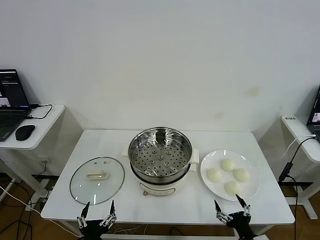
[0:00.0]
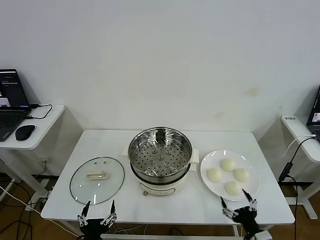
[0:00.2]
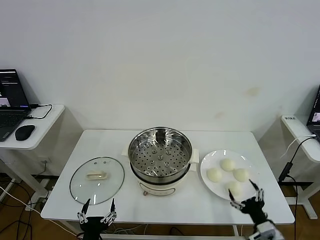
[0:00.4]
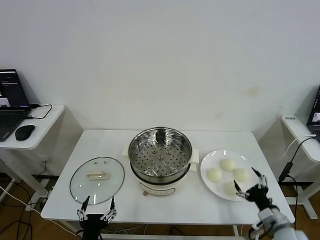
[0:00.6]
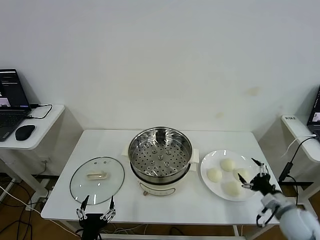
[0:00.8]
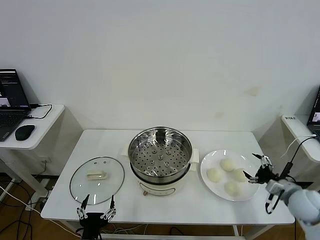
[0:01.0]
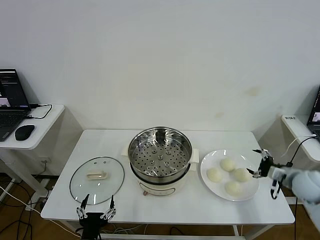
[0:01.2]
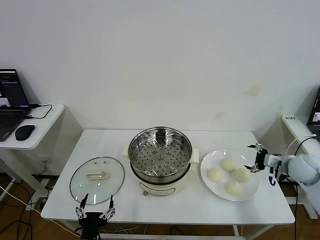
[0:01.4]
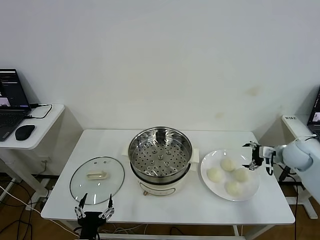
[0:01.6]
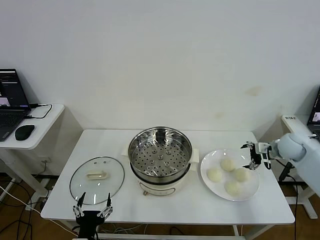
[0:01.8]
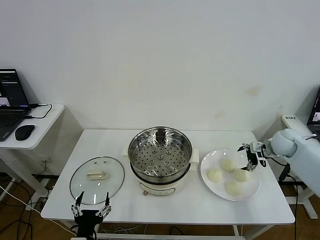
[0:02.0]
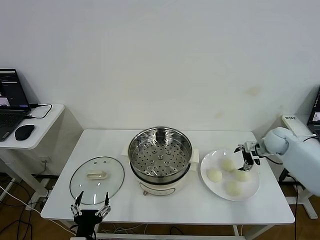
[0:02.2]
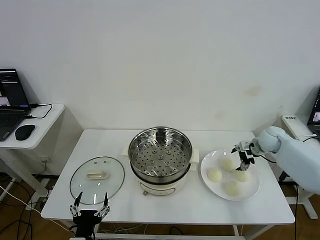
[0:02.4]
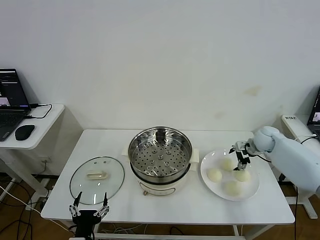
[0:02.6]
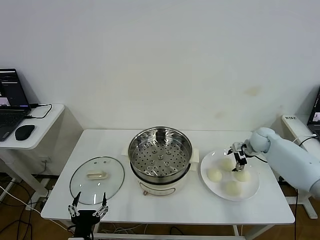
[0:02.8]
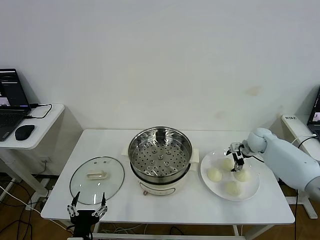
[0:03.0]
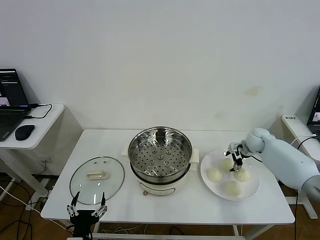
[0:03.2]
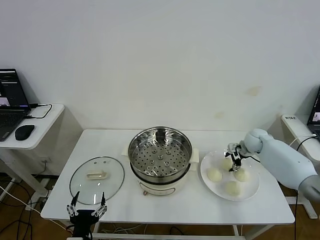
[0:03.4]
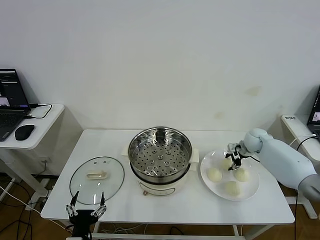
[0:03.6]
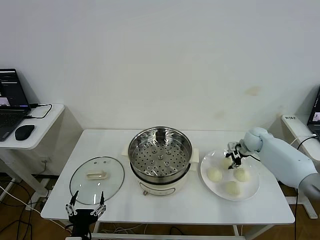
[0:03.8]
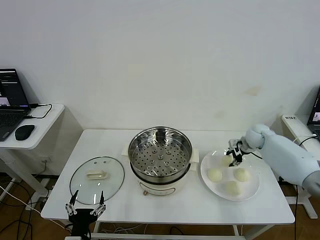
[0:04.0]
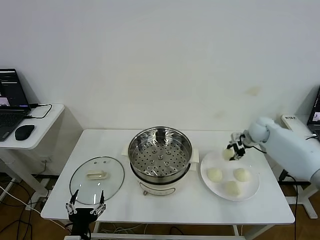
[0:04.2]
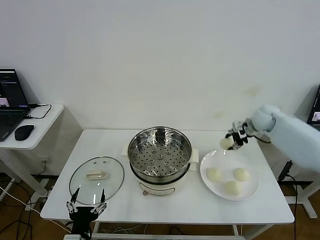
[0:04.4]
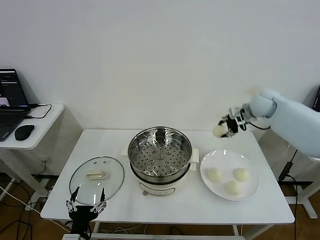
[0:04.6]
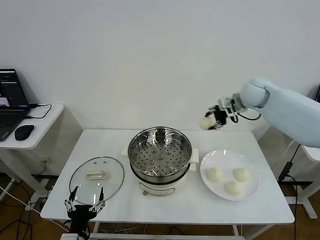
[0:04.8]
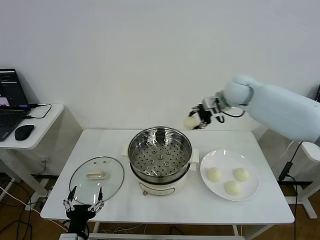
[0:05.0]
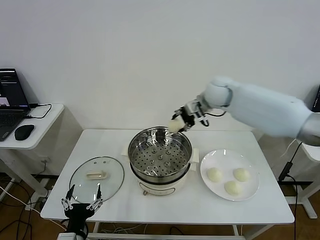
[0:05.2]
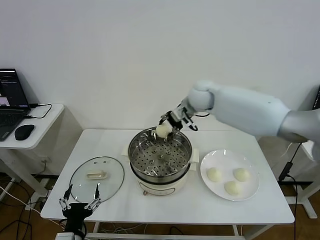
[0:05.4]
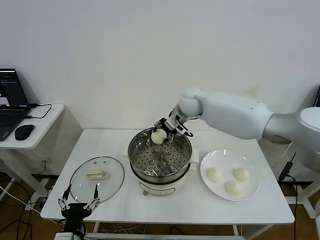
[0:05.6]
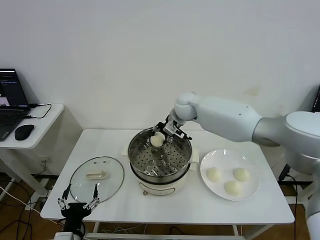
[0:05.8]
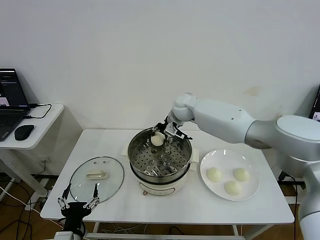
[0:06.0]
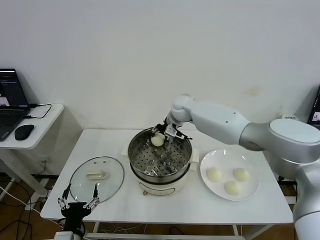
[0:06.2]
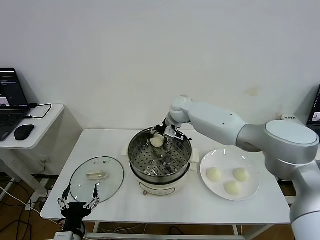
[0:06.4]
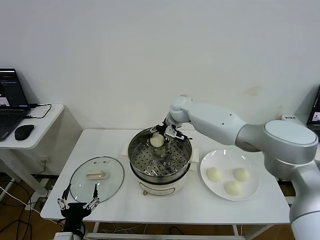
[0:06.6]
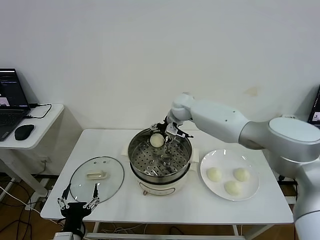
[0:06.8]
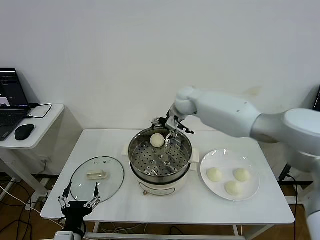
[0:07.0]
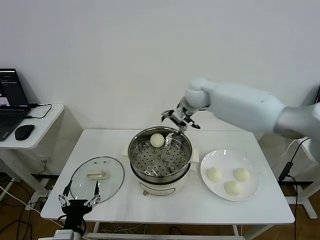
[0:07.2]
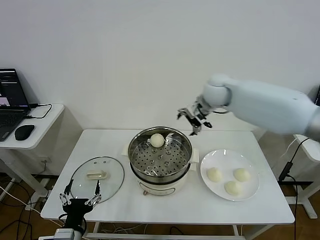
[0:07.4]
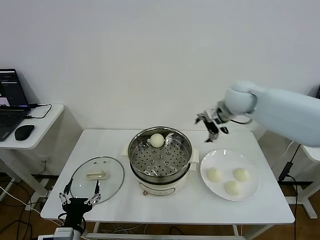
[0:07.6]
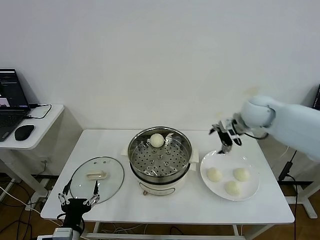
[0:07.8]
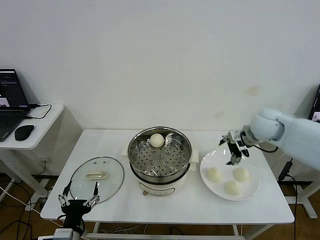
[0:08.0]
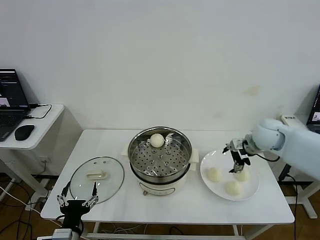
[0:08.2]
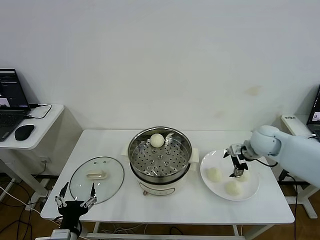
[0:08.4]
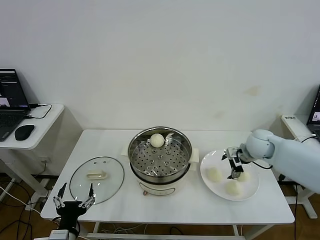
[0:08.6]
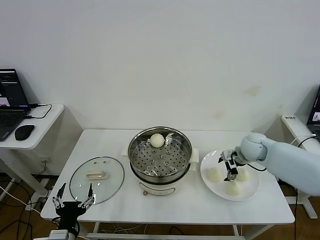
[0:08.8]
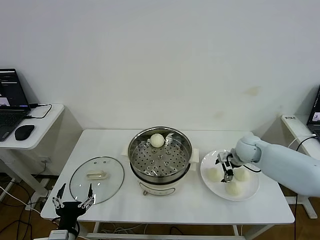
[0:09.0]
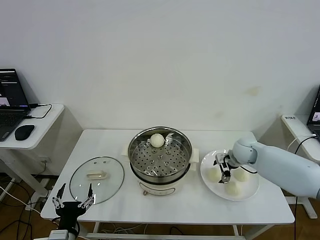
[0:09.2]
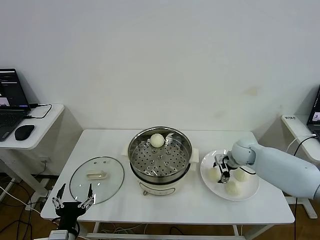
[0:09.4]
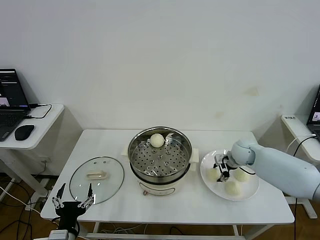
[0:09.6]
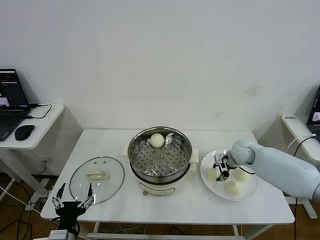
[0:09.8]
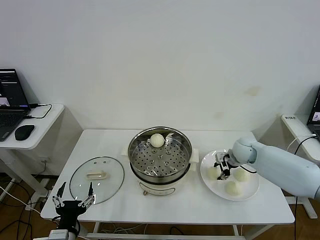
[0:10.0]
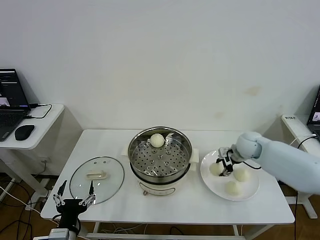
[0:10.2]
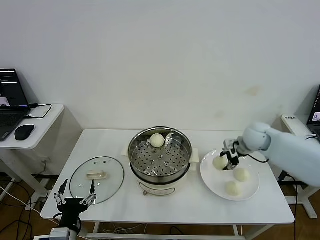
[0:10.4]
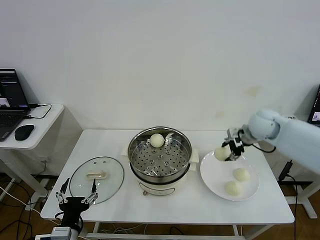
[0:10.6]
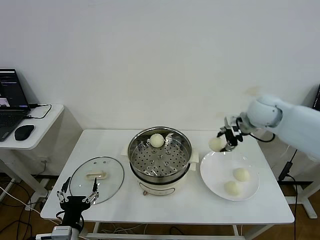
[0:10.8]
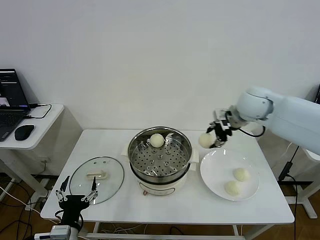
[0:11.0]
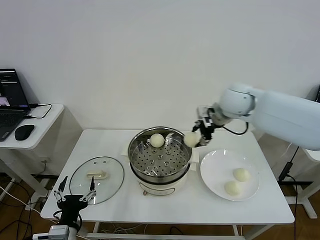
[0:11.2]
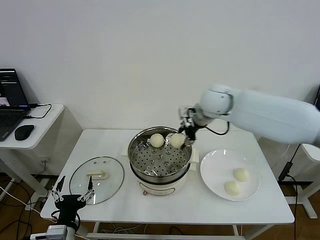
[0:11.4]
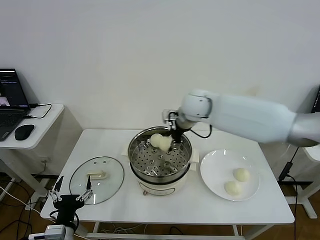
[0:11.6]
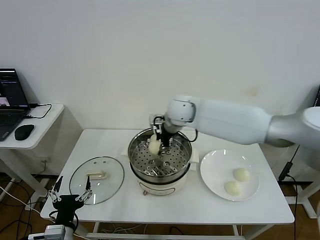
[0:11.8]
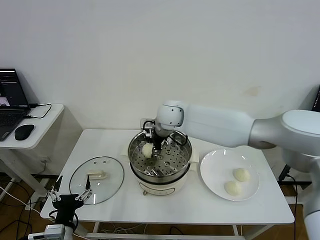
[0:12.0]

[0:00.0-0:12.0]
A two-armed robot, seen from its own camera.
Step, 0:00.0 to 0:03.4: Grasp the baozi in the plate with right gripper.
Step, 0:03.6 to 0:06.6: Place the baozi on the steamer with right gripper.
Step, 0:06.8 to 0:09.4: Grasp the baozi in the plate with right gripper.
0:01.6 to 0:03.0: The right gripper goes about 15 cm forward, to the left and downward.
0:03.0 to 0:04.4: The right gripper shifts about 15 cm upward, and closes.
0:04.4 to 0:06.0: The right gripper heads to the left, covering roughly 30 cm.
0:06.0 to 0:07.6: The right gripper shifts approximately 20 cm to the right, backward and upward, and opens up.
0:07.6 to 0:09.0: The right gripper moves downward, about 20 cm.
0:09.0 to 0:10.4: The right gripper shifts about 10 cm upward, and closes up.
0:10.4 to 0:12.0: The right gripper moves to the left, approximately 30 cm.

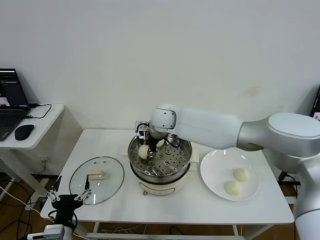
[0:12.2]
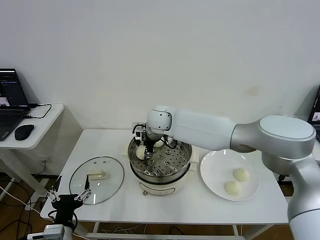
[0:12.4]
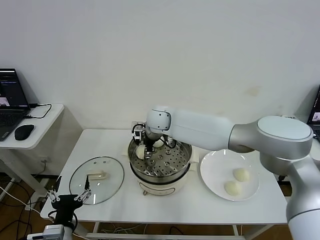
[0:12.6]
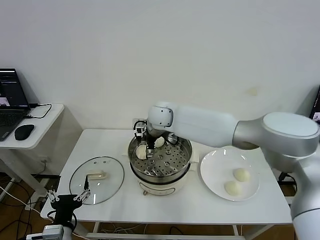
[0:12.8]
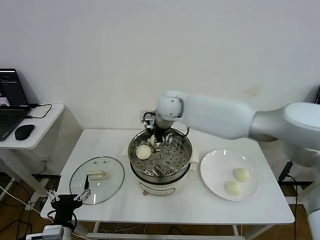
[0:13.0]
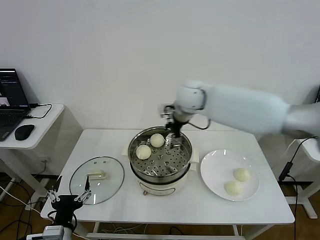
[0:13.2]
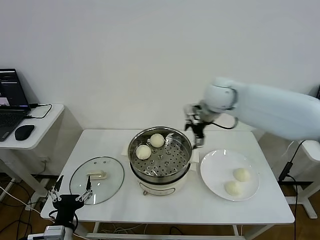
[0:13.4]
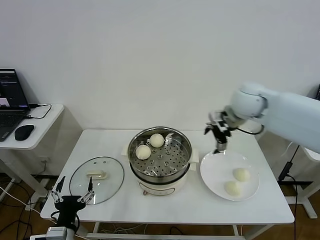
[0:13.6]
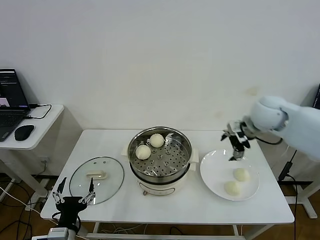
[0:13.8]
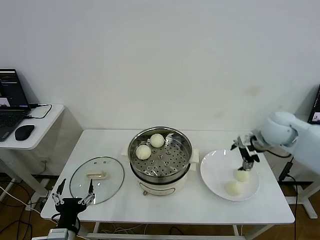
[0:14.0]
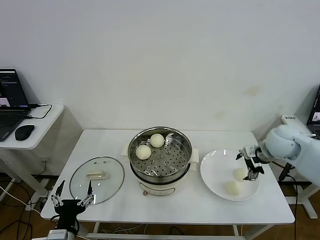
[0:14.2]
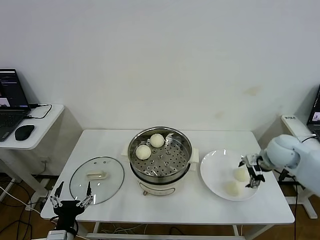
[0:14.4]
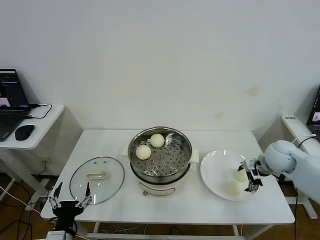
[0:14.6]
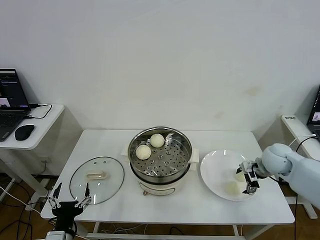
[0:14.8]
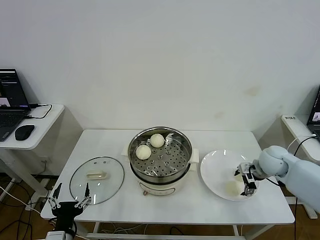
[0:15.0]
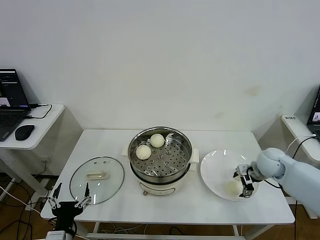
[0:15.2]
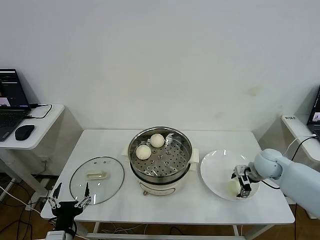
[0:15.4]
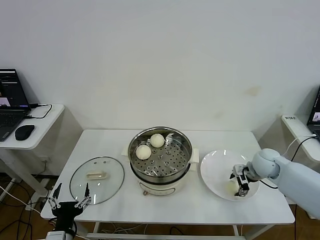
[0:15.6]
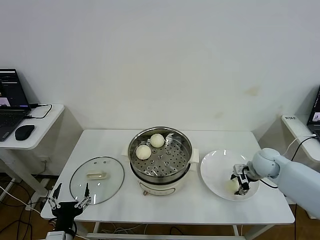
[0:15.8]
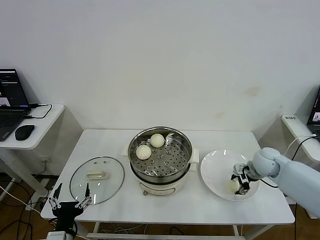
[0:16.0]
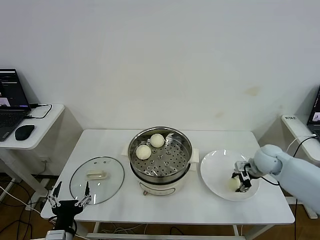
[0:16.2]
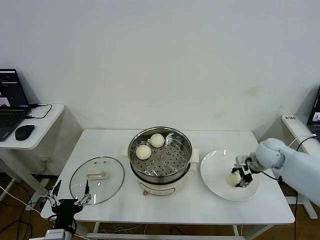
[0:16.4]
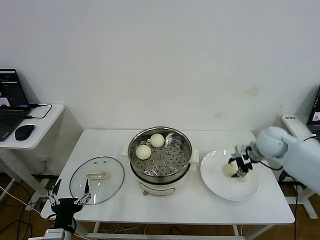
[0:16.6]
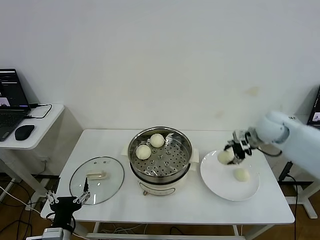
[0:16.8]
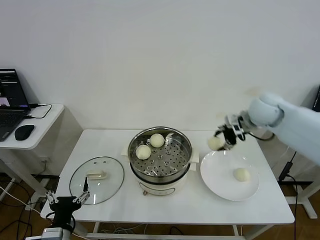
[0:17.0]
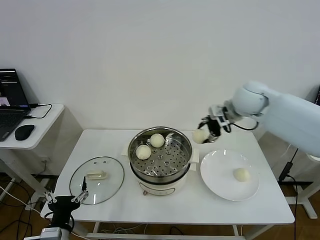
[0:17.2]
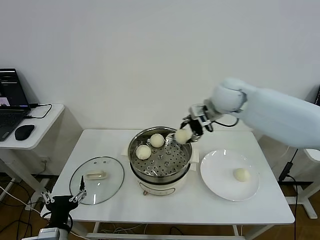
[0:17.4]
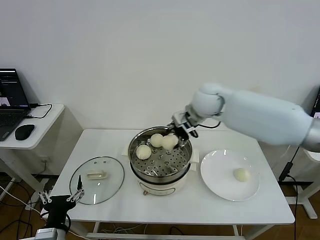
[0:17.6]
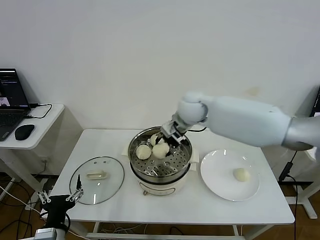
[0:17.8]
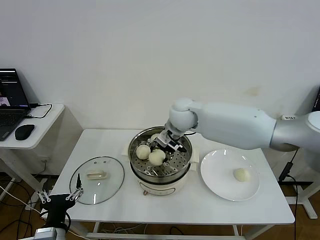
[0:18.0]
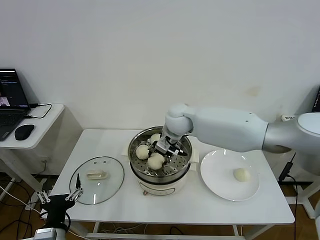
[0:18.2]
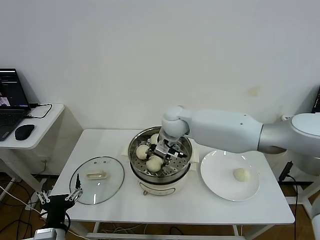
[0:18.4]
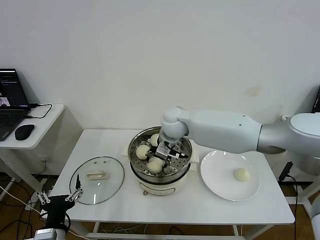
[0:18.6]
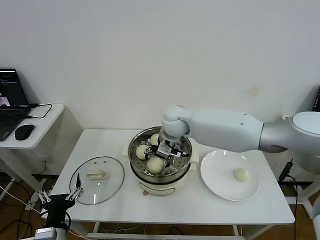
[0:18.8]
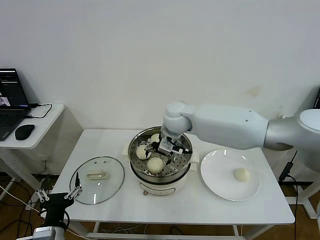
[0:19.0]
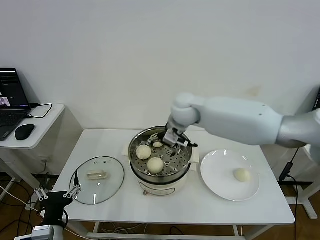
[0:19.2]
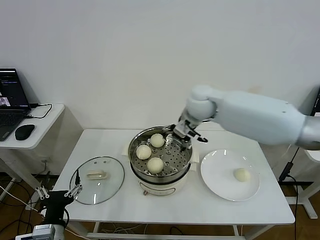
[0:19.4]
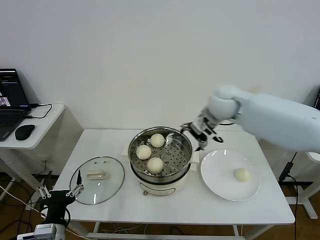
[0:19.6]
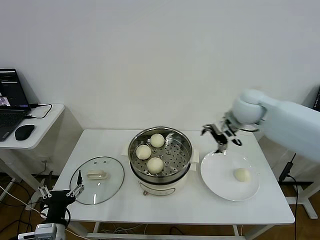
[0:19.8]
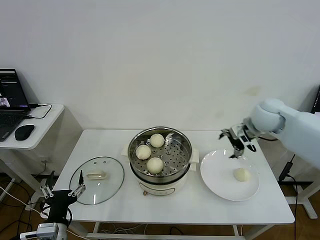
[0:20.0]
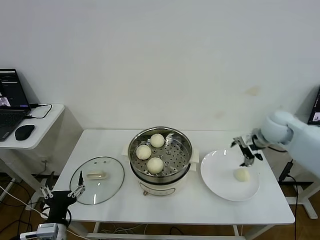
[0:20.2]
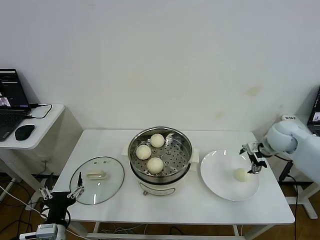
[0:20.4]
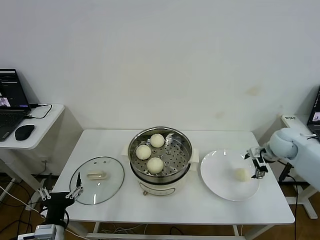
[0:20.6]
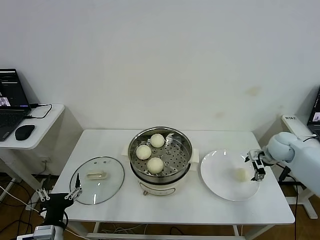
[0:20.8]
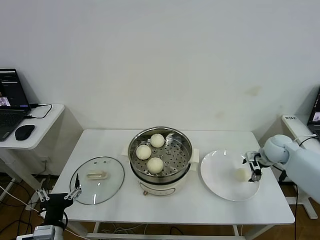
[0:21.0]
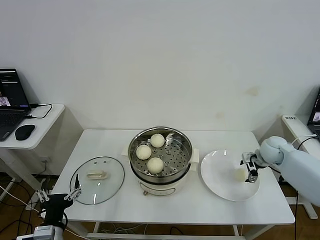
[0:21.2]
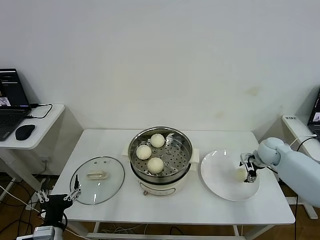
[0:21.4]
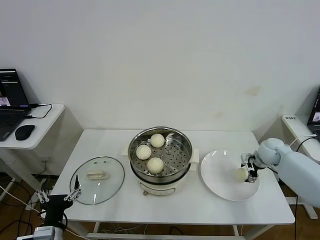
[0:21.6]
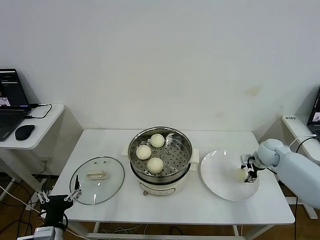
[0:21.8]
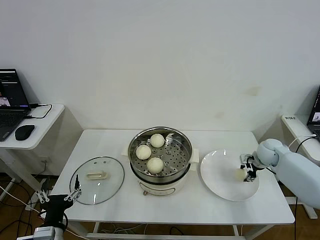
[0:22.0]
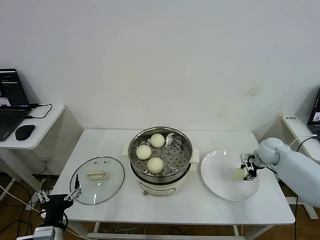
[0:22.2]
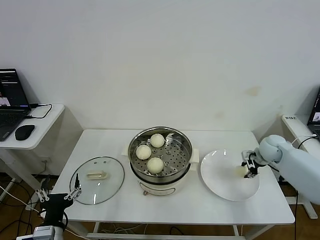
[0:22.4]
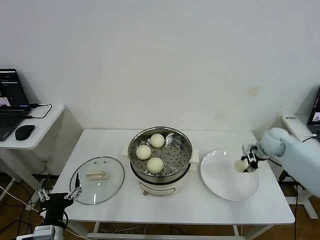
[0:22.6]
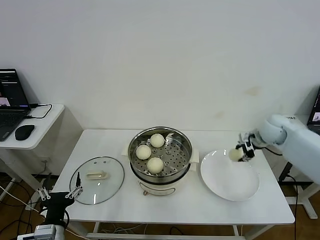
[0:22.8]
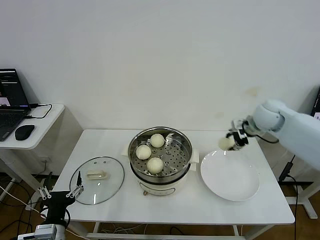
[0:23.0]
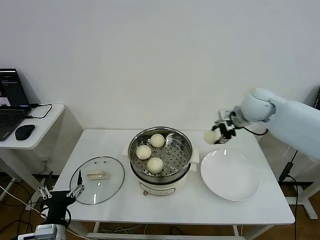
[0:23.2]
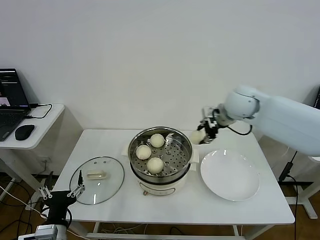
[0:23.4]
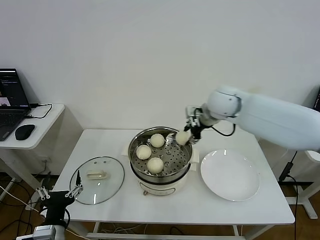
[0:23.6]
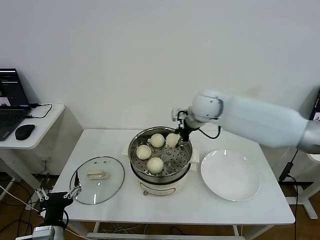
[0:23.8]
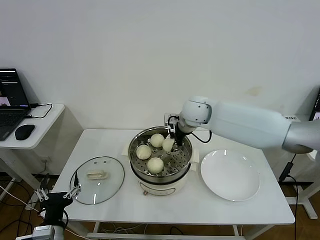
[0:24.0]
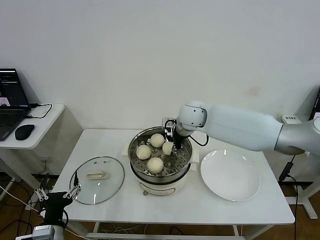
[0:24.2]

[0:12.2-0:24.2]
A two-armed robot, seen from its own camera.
Step, 0:12.8 to 0:15.8: Grasp the baozi in the plate with right gripper.
Step, 0:16.0 to 0:18.6: Place the baozi on the steamer with right gripper.
Step, 0:18.8 to 0:21.8: Grasp the baozi in the plate with right gripper.
0:12.2 to 0:13.8: The right gripper heads to the right, covering about 30 cm, and opens.
0:13.8 to 0:15.2: The right gripper moves downward, about 15 cm.
0:15.2 to 0:16.6: The right gripper is displaced upward by approximately 10 cm, and closes up.
0:16.6 to 0:18.2: The right gripper heads to the left, covering roughly 30 cm.
0:18.2 to 0:19.8: The right gripper heads to the right, covering some 20 cm, and opens its fingers.
0:19.8 to 0:21.2: The right gripper is displaced downward and to the right by about 25 cm.
0:21.2 to 0:22.6: The right gripper closes.
0:22.6 to 0:24.2: The right gripper heads to the left, covering some 30 cm.
